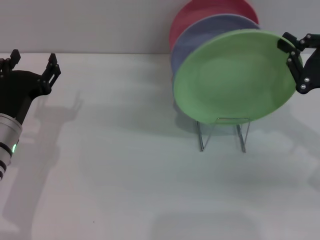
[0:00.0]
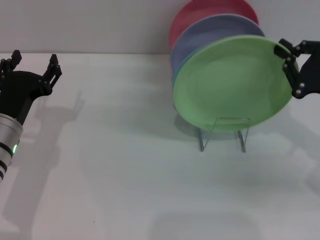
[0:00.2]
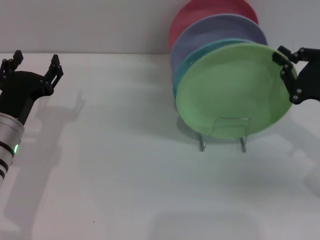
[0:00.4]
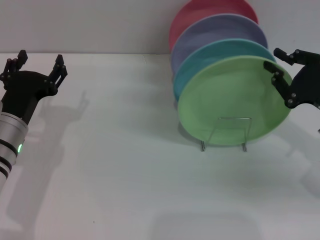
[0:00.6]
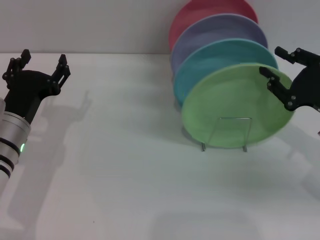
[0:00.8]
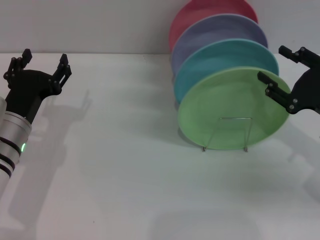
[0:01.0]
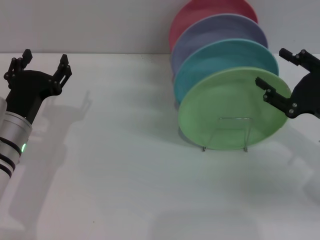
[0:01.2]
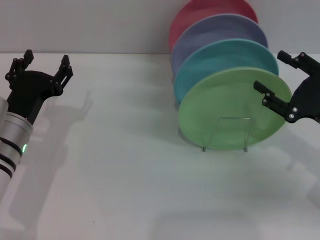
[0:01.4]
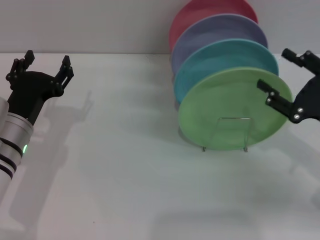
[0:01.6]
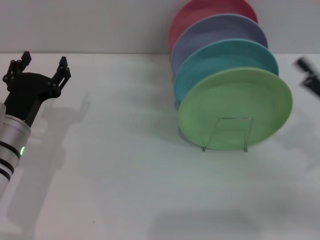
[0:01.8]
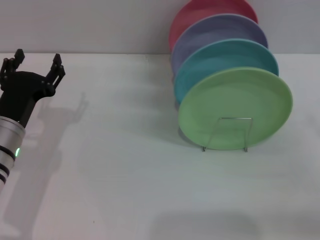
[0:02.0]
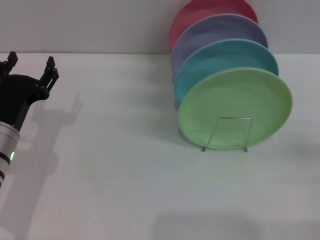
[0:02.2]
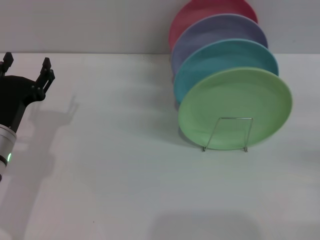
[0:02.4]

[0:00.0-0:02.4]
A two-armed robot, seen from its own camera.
Task of the whole recording: Grip the plate with one hand, pass it to the other, then set it on the shelf.
0:00.0 to 0:01.2: The right gripper opens up.
0:01.2 to 0:02.4: The right gripper heads backward and to the right, covering approximately 15 cm.

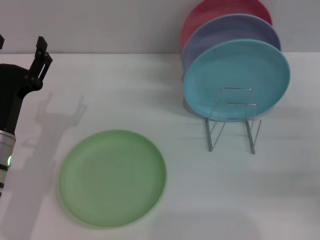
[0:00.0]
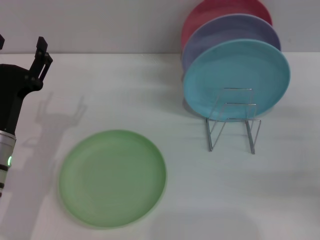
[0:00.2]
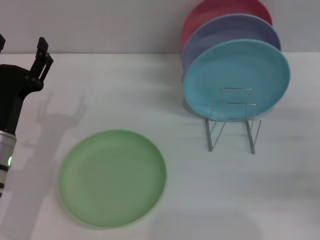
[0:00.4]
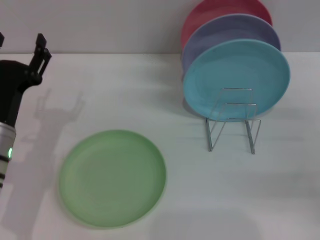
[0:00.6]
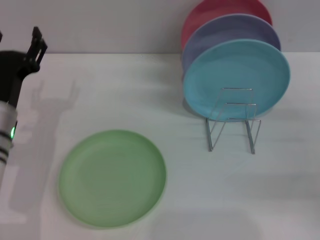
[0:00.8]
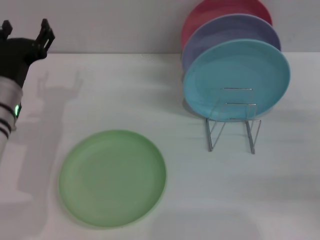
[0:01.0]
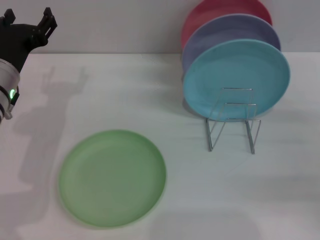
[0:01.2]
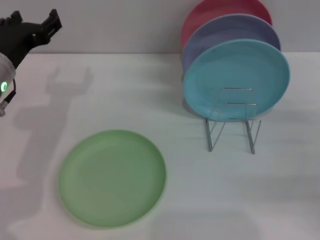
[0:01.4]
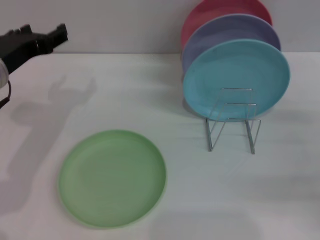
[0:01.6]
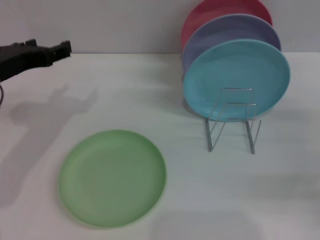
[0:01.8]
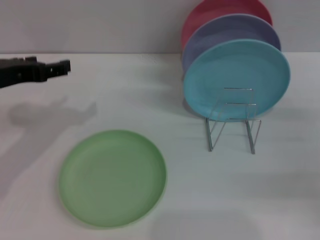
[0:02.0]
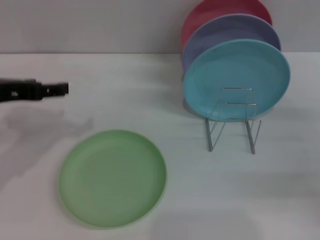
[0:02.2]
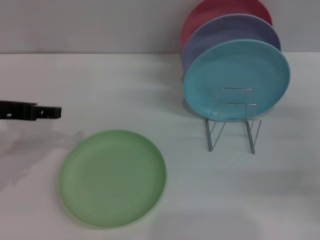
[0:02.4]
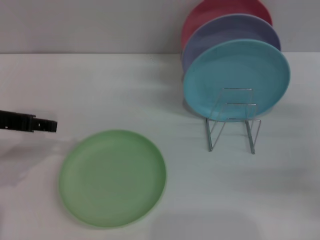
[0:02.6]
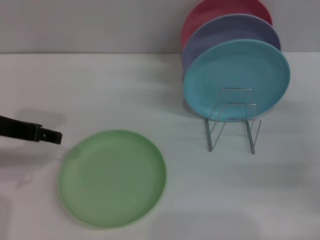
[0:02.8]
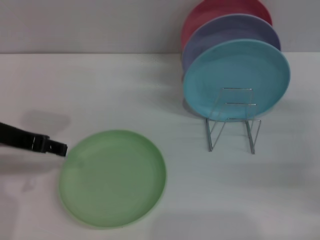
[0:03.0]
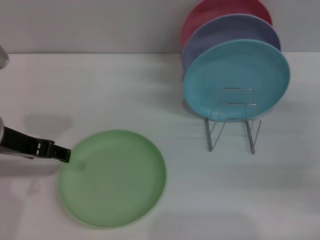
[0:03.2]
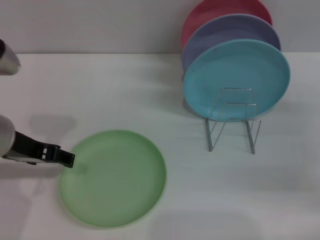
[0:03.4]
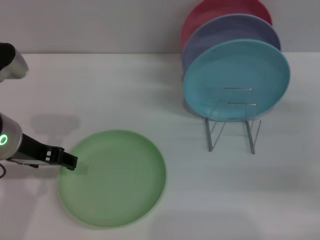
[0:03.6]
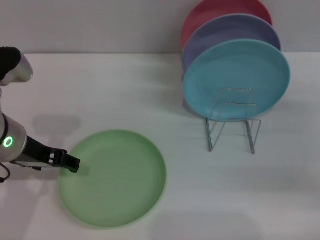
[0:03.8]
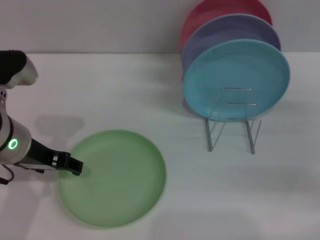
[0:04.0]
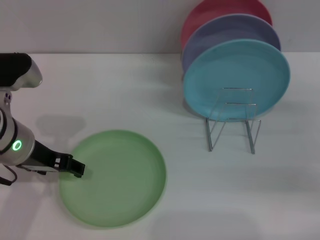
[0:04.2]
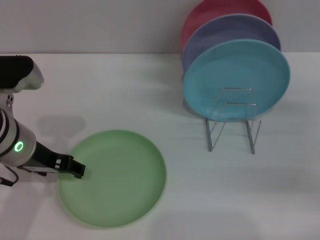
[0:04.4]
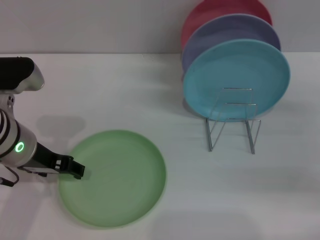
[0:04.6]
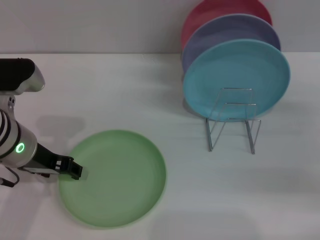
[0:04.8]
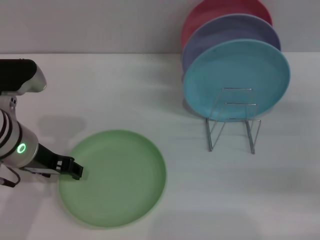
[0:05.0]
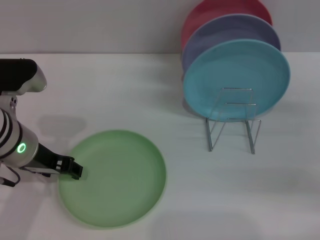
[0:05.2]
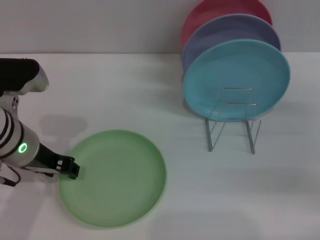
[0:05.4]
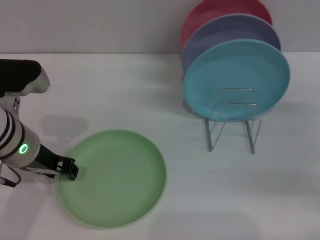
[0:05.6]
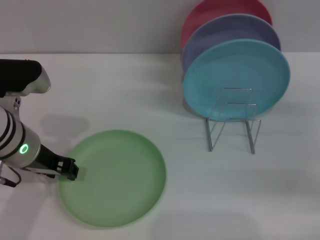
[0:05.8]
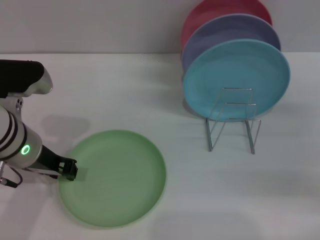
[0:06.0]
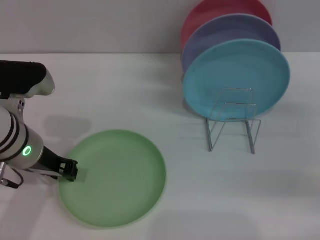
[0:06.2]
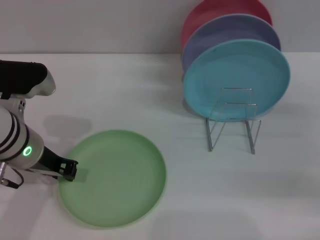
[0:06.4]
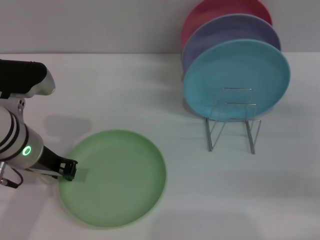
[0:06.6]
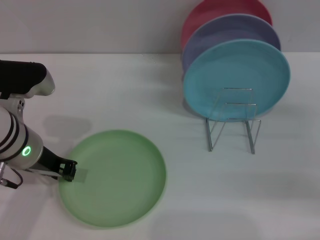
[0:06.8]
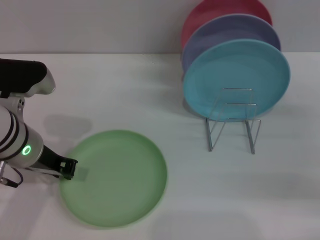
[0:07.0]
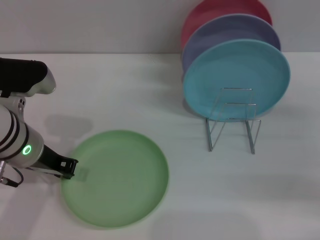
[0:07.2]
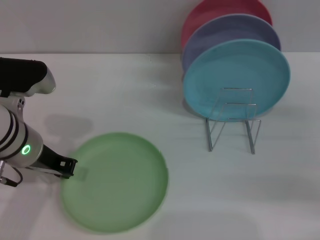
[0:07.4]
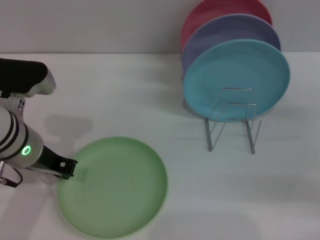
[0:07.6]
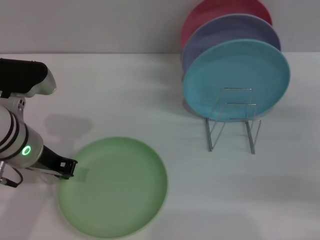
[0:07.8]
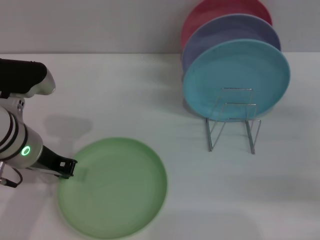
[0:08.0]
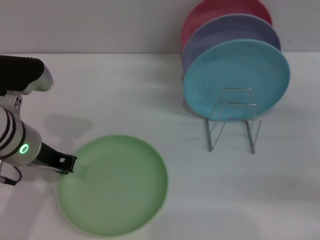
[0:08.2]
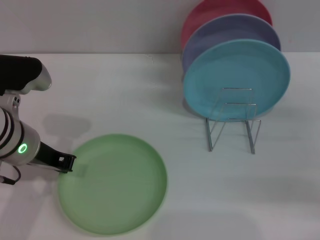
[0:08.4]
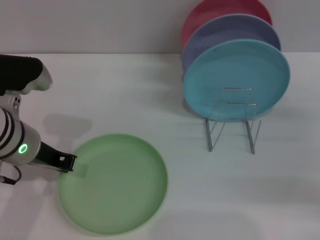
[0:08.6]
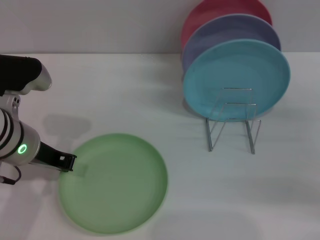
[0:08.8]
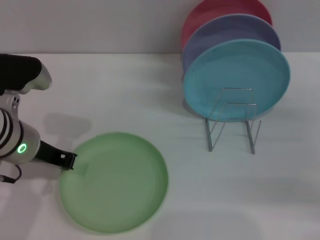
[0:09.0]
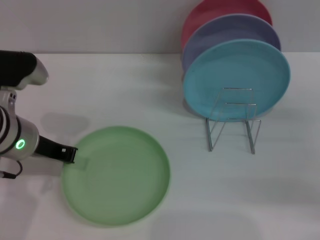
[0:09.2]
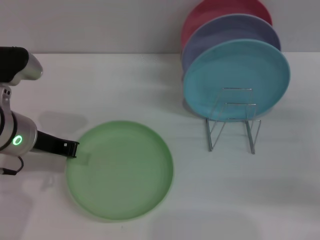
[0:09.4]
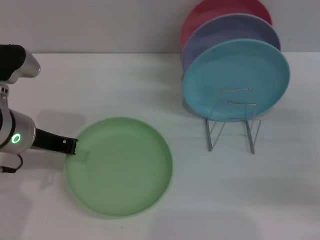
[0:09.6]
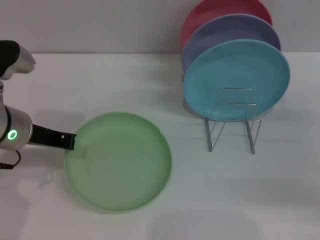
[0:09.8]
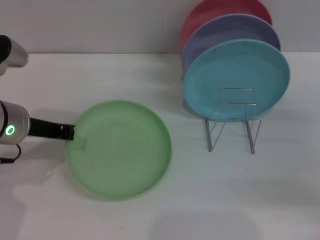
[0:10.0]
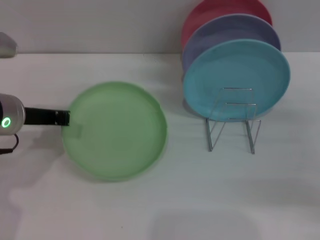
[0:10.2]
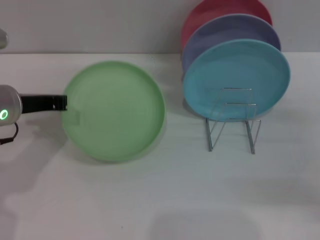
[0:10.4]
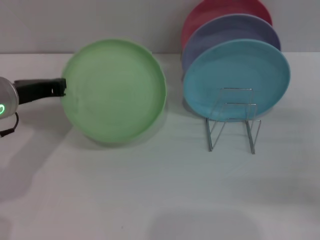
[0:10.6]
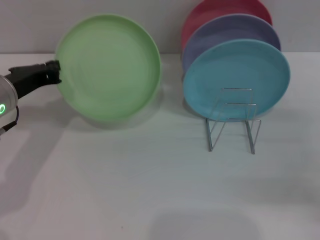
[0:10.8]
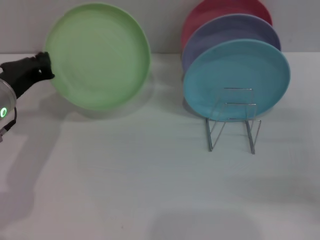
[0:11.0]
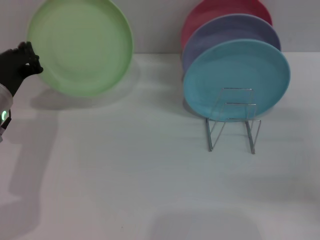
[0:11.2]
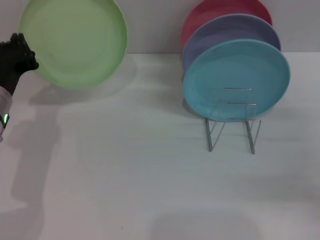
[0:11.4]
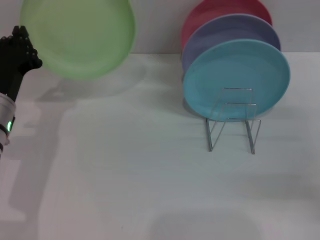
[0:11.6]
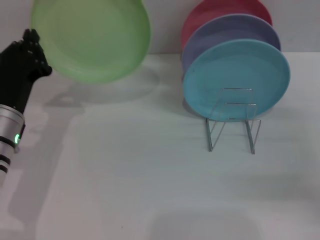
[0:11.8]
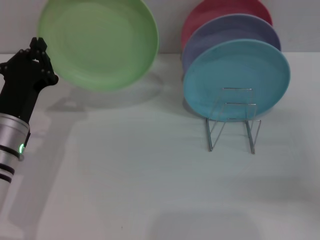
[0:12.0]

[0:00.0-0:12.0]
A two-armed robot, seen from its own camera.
Task of the whole recording: Grip the plate with one hand, pass it to the other, then set it on the shelf.
Step, 0:00.0 to 0:10.6: Pick up the plate with the left gripper.
0:00.0 to 0:01.6: The left gripper moves upward and forward, about 10 cm.
0:03.0 to 0:04.4: The left gripper ends up approximately 5 cm from where it was.
0:04.4 to 0:06.0: The left gripper closes its fingers.
0:06.0 to 0:07.6: The left gripper closes its fingers.
0:07.6 to 0:09.0: Both grippers stay about where they are.
0:10.4 to 0:12.0: The left gripper shifts about 10 cm downward.

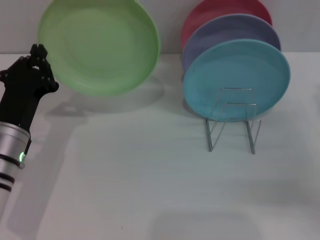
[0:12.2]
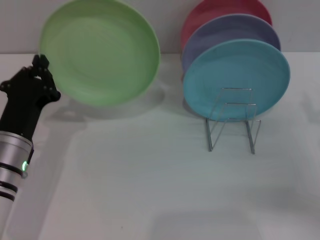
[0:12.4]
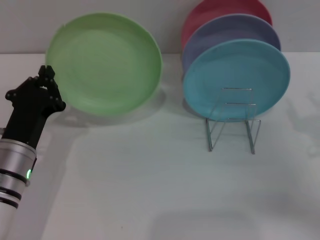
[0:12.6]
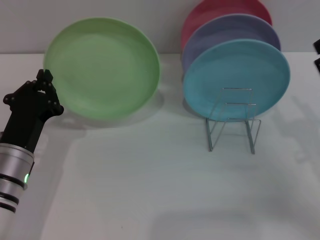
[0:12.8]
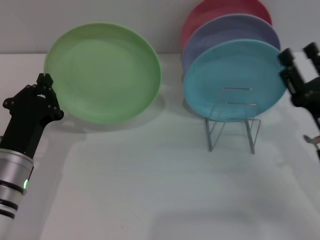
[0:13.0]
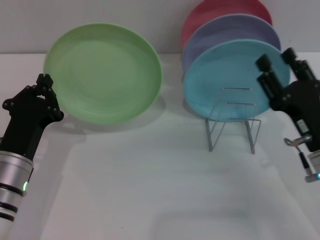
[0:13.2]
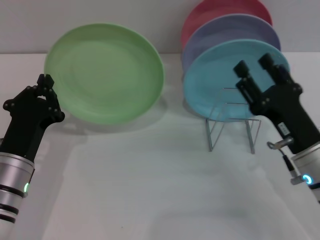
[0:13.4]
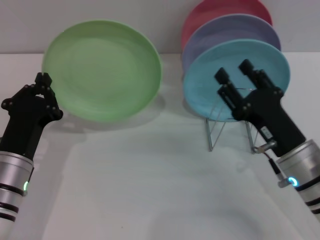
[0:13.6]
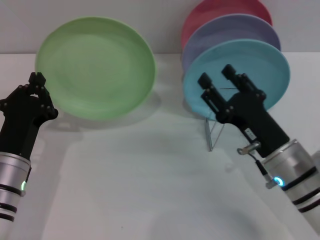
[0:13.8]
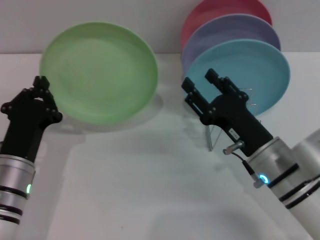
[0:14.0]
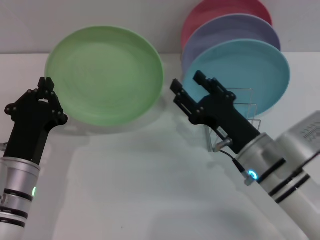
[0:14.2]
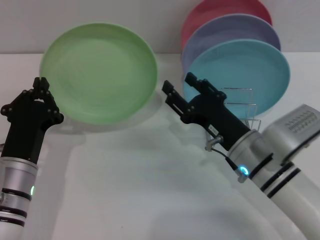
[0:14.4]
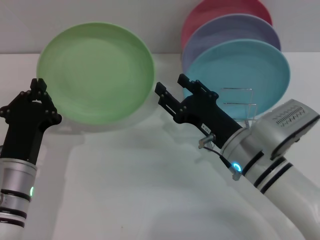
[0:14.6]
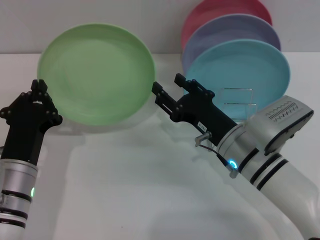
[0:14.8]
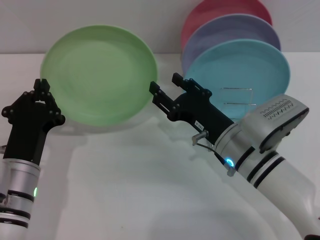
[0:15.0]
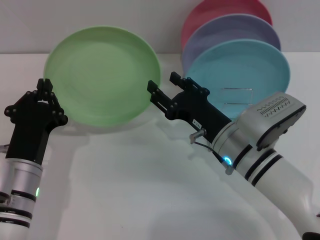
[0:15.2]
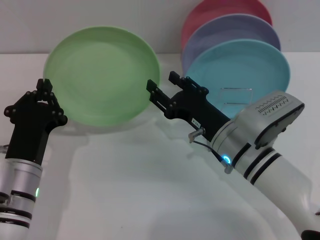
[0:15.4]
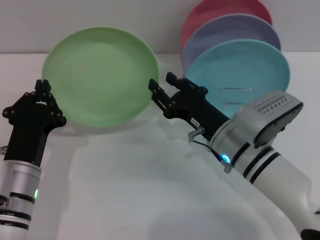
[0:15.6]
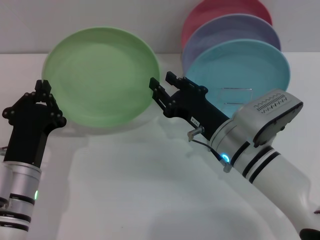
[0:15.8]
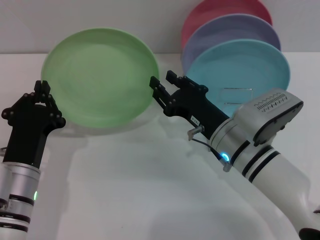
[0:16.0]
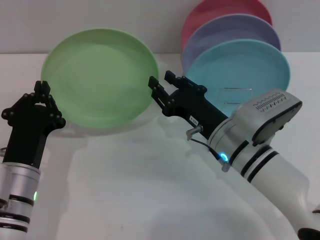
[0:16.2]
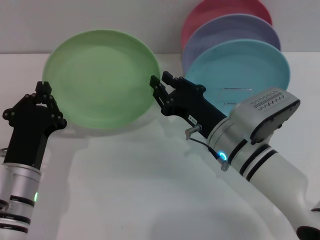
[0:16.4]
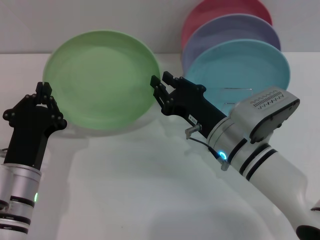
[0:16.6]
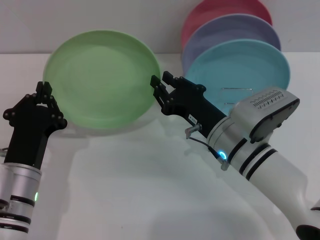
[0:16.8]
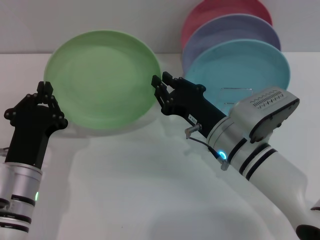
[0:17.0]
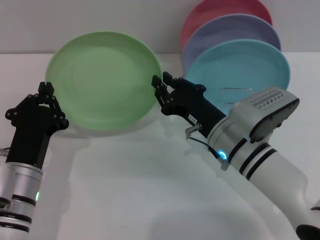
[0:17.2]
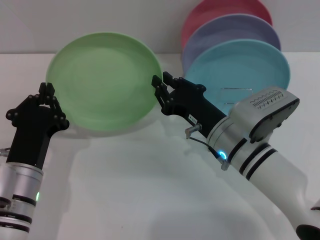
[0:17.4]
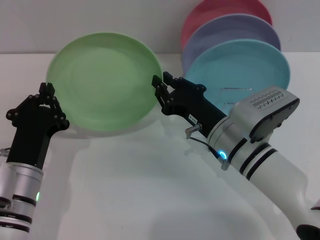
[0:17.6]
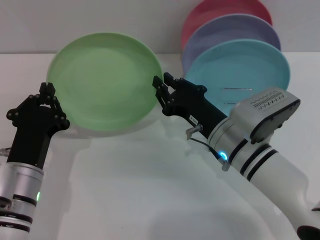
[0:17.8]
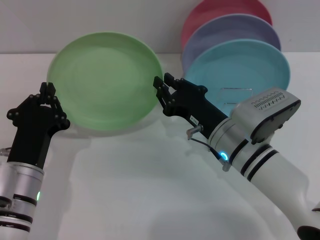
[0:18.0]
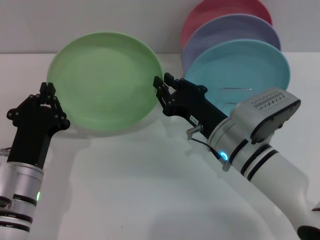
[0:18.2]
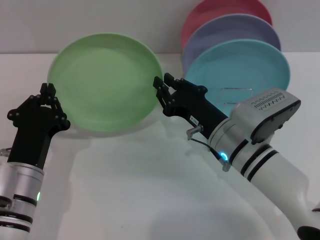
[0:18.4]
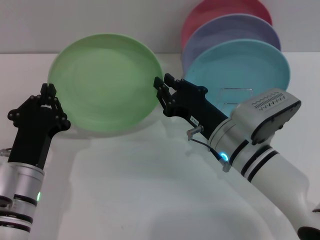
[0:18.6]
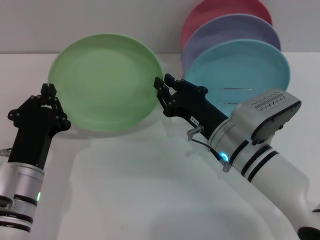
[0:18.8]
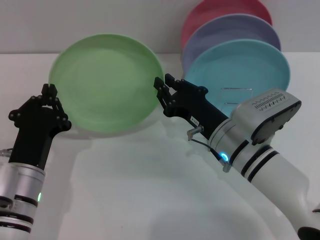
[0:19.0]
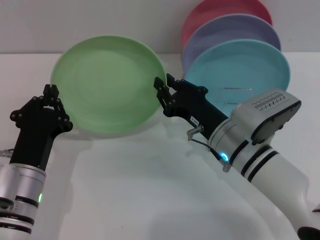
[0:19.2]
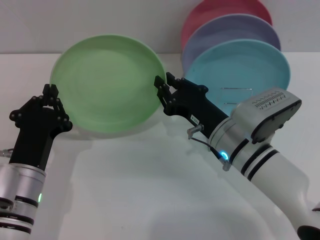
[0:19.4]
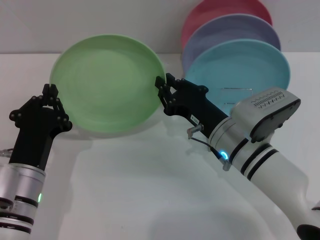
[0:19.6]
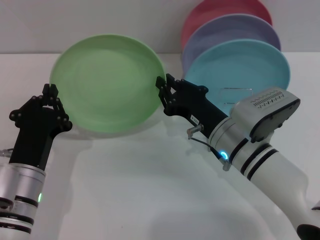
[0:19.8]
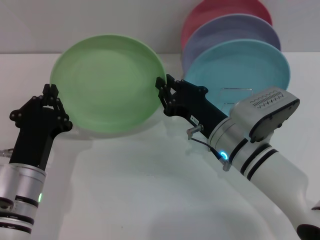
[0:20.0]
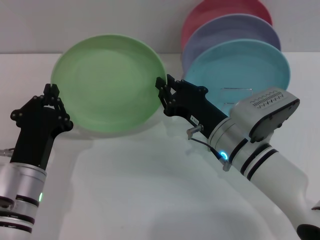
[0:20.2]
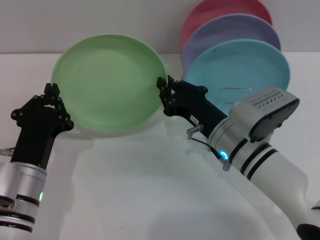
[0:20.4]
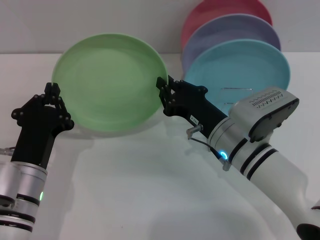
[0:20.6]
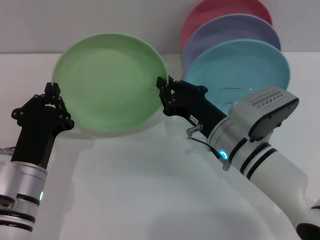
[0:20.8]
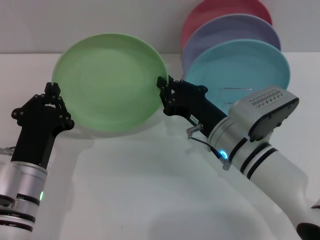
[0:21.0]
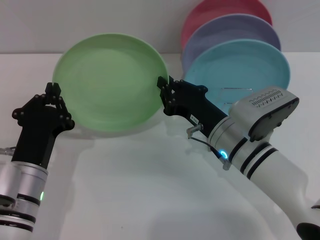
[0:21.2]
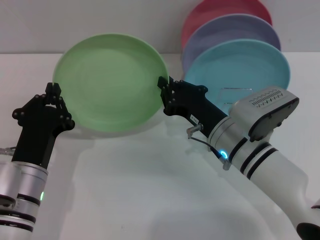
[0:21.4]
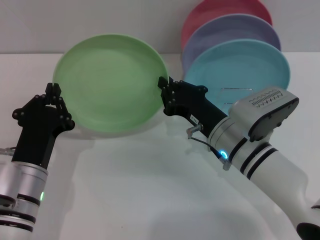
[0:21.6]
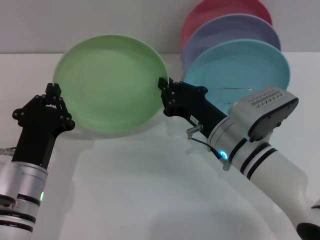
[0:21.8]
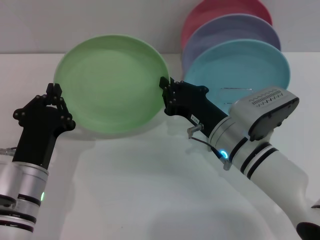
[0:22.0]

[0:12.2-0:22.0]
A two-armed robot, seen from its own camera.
Task of the whole recording: Grip the plate with one hand, pass it to the other, then set it on the shelf.
0:12.2 to 0:13.6: The right gripper travels to the left by approximately 15 cm.
0:13.6 to 0:15.0: The right gripper moves to the left, about 5 cm.
0:15.0 to 0:16.4: The right gripper closes up.
0:16.4 to 0:22.0: The two grippers keep their place.
